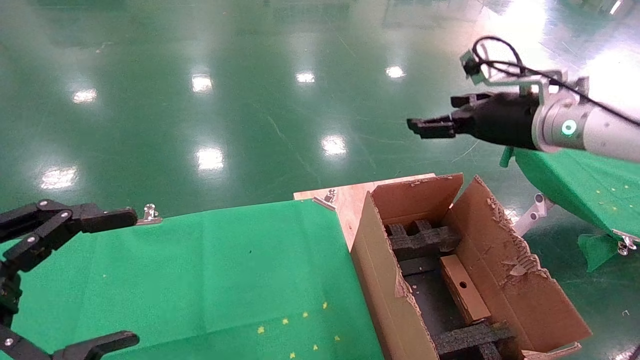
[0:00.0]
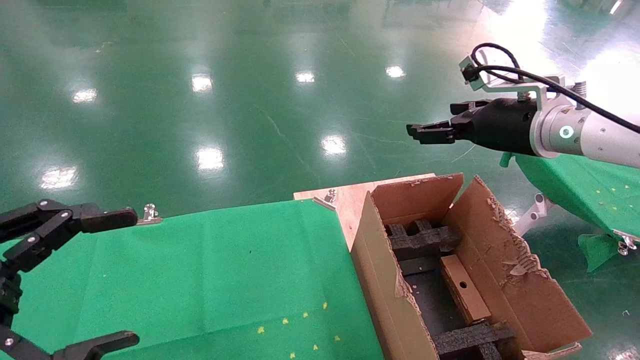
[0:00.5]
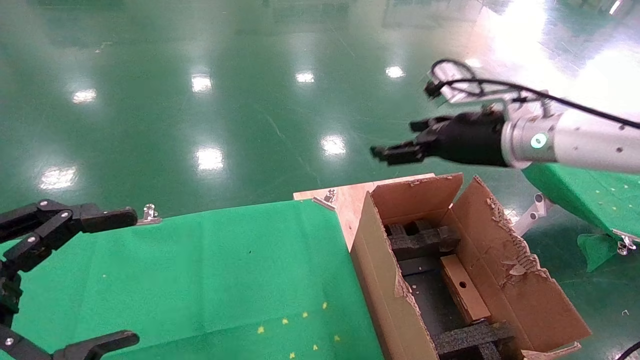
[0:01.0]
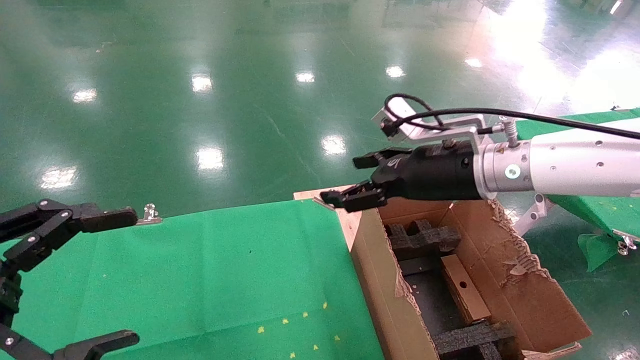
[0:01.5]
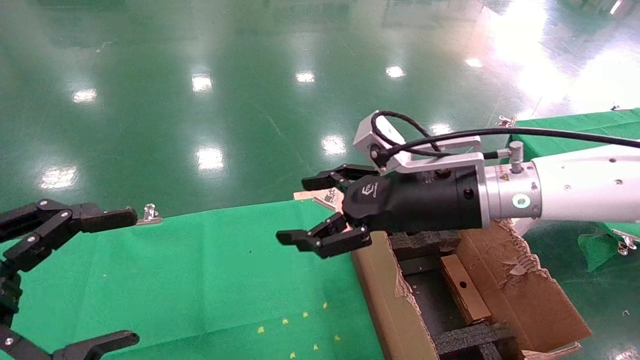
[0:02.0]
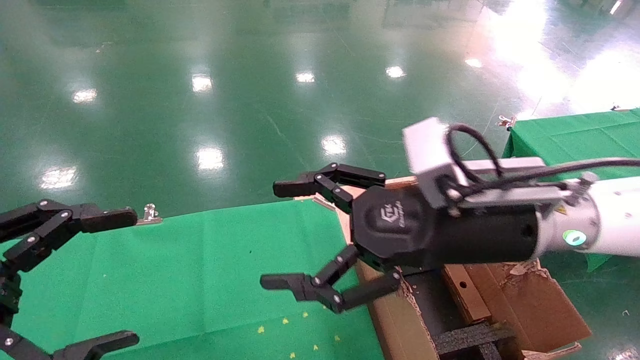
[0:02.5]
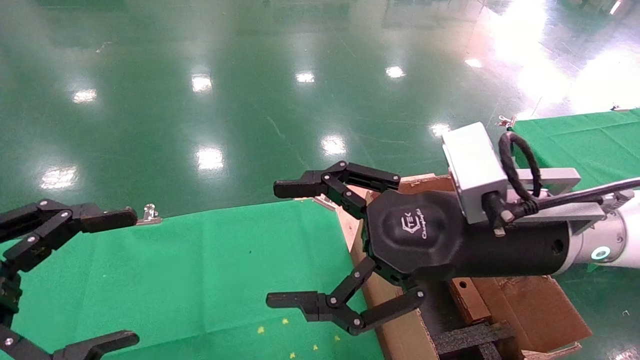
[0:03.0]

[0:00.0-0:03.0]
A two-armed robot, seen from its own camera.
Task of the whole recording: using a robotic arm to pick up a cardboard box and palace it the carton.
0:00.0 to 0:01.5: The right gripper moves to the left, approximately 10 cm.
0:01.5 to 0:03.0: The right gripper goes roughly 10 cm backward.
